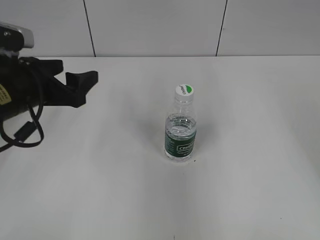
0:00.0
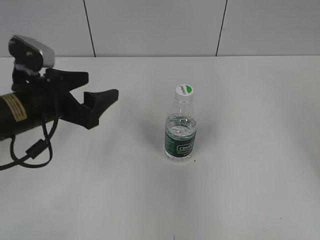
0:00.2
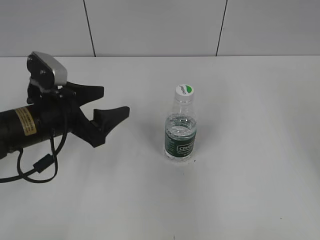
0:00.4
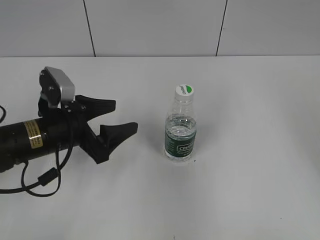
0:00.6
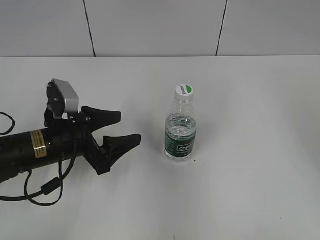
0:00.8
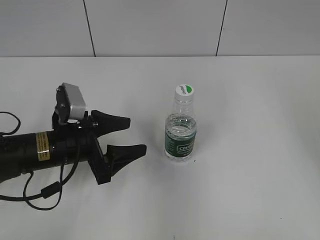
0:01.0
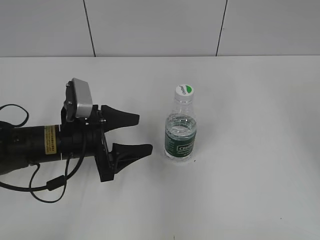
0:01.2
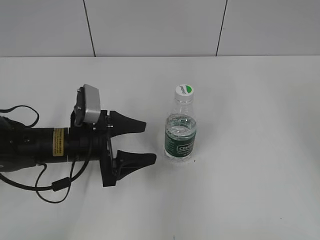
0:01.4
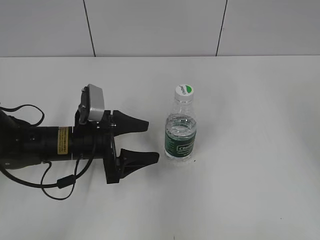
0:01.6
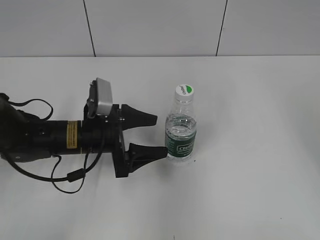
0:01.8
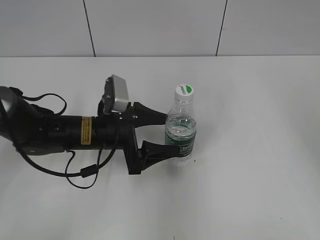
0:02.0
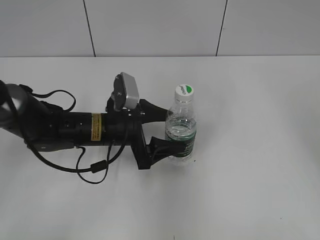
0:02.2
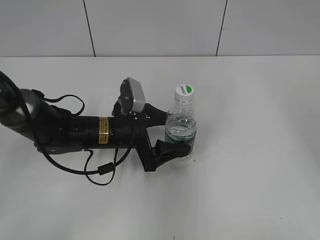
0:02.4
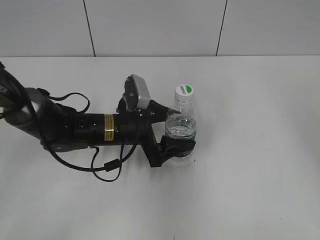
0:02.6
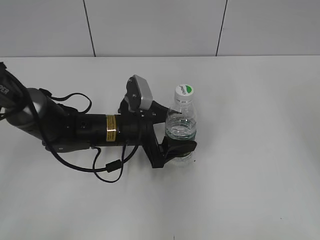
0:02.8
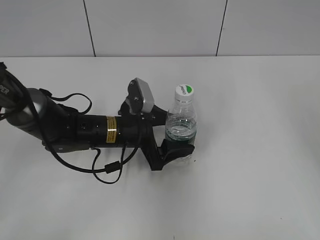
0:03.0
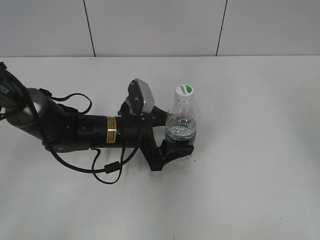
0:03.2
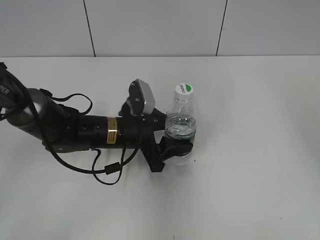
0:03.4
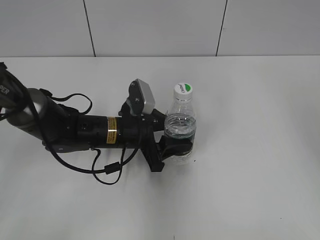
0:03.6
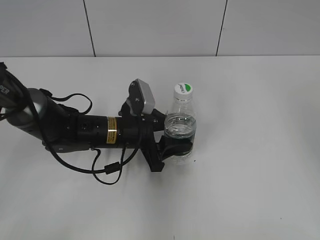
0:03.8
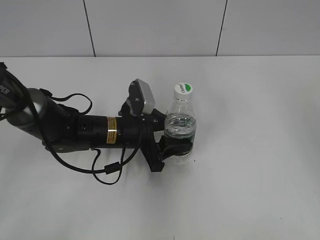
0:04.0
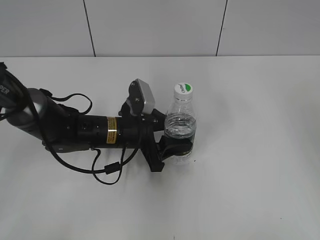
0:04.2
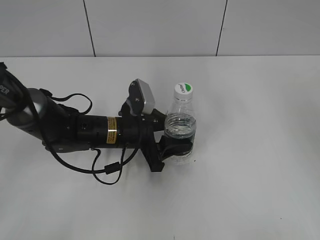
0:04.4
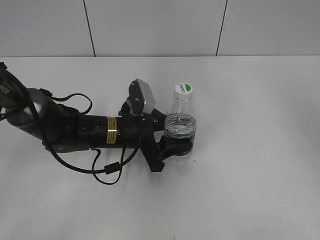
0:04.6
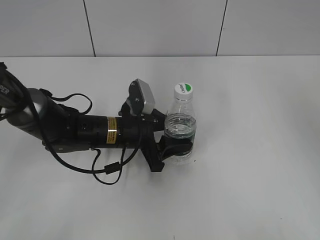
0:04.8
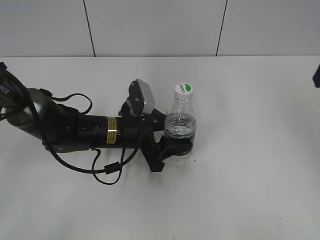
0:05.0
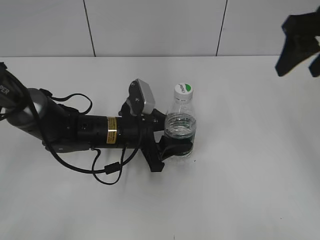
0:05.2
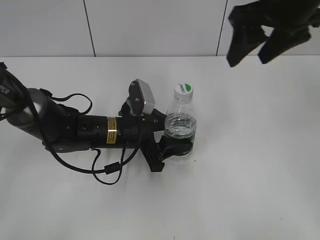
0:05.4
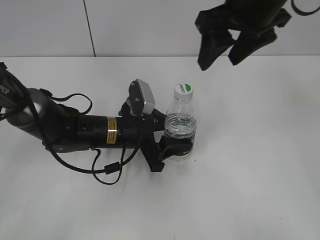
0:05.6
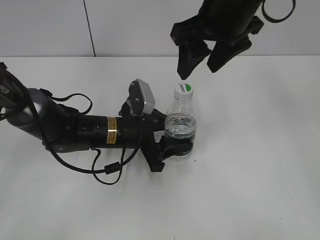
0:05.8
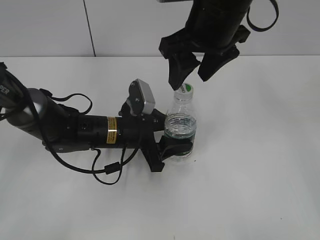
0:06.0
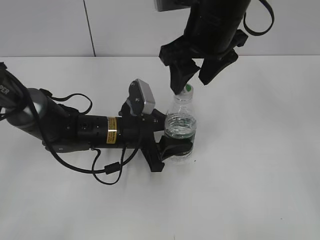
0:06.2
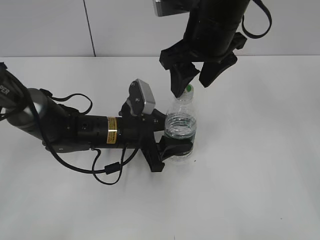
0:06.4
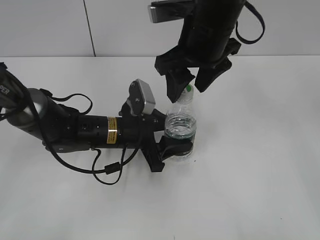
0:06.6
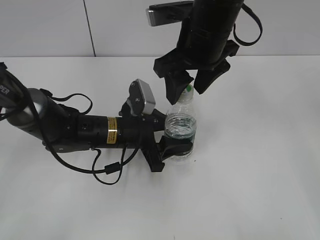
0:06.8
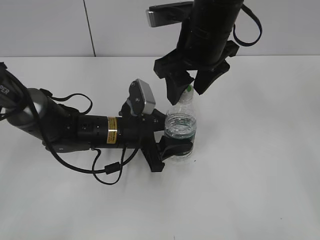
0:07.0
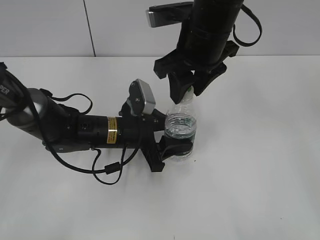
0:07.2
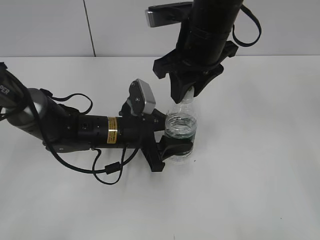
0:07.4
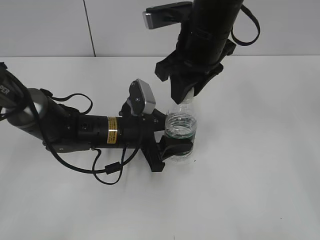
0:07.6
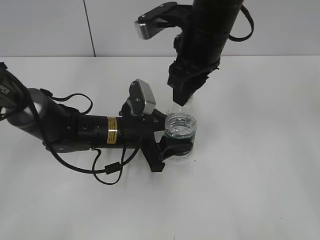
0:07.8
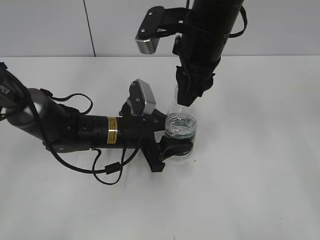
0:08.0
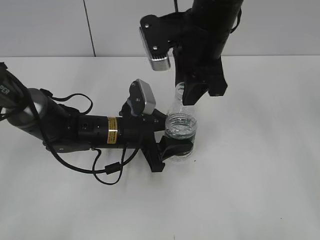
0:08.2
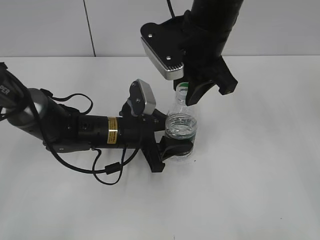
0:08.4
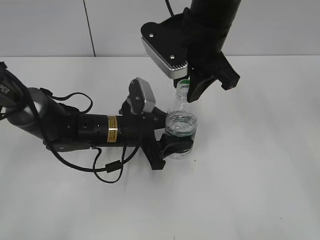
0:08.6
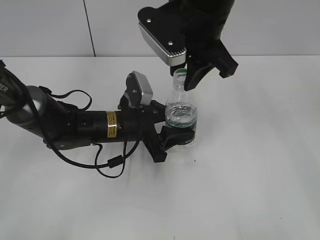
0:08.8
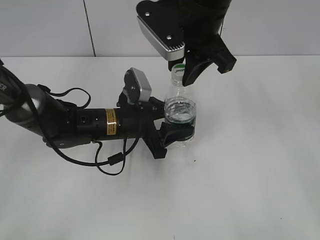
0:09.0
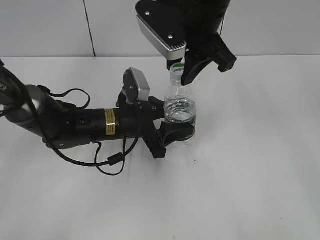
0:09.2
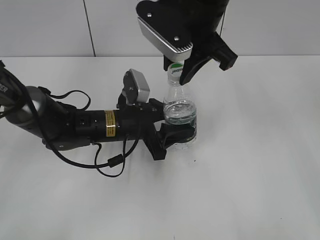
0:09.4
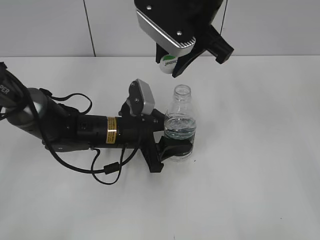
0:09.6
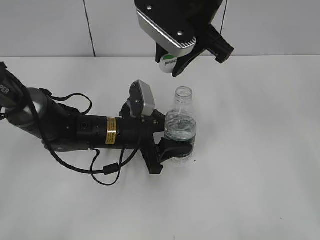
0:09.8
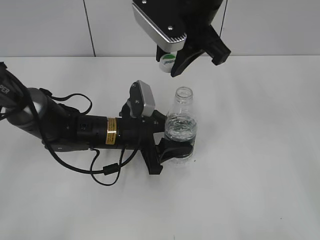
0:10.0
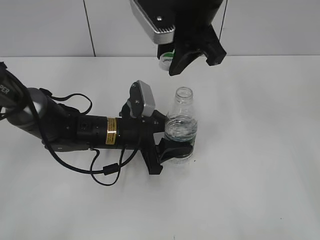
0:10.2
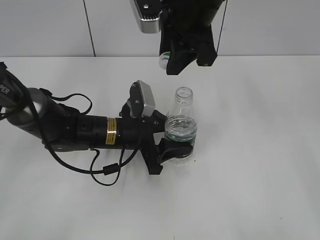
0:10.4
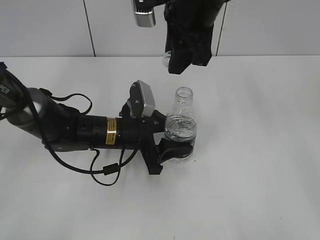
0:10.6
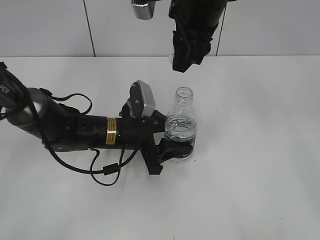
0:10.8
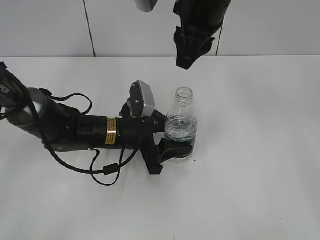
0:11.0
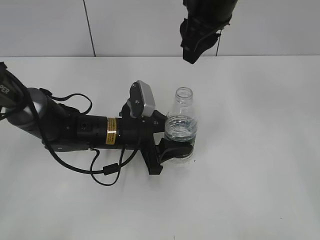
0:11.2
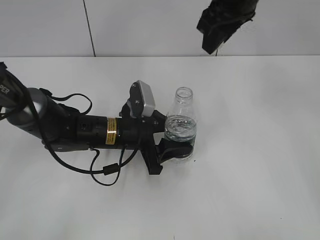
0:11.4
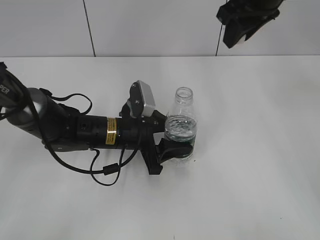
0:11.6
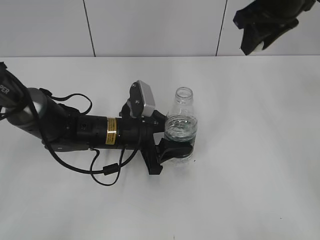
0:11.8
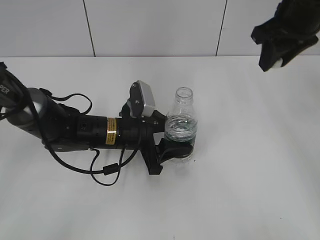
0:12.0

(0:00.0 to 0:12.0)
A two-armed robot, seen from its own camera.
Step, 0:00.0 - 0:03.6: Grasp the bottle and move it to the center of the table with the left gripper.
Step, 0:03.8 - 0:09.6: Unscrew the bottle cap with the right gripper while holding the bottle with the left gripper.
0:00.0 - 0:01.6: The left gripper is displaced downward and to the right by approximately 15 cm.
0:01.6 - 0:03.0: The left gripper shifts some 5 cm to the right.
0:03.0 - 0:04.4: The left gripper closes.
0:04.4 - 0:06.0: The right gripper is displaced to the left by about 25 cm.
0:06.0 - 0:07.6: The right gripper closes.
0:09.0 - 0:10.4: There are only small adjustments of the grippers.
0:10.4 - 0:12.0: The right gripper goes about 15 cm to the right.

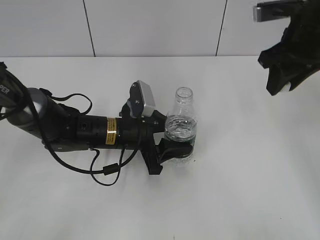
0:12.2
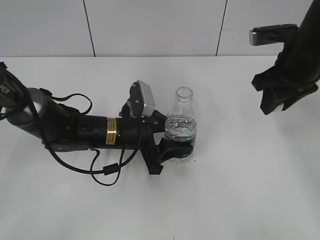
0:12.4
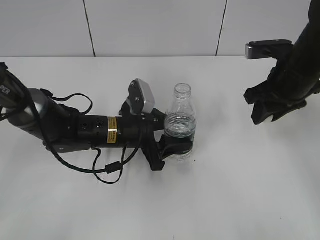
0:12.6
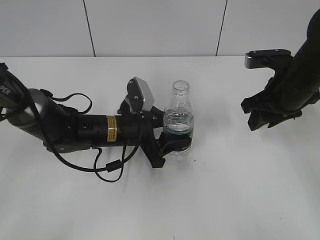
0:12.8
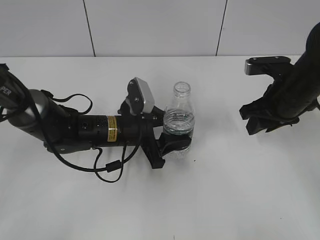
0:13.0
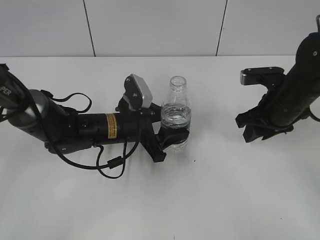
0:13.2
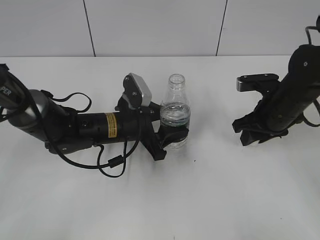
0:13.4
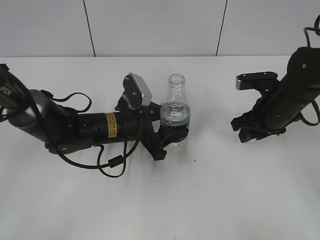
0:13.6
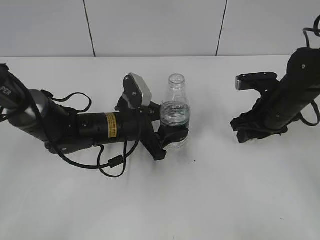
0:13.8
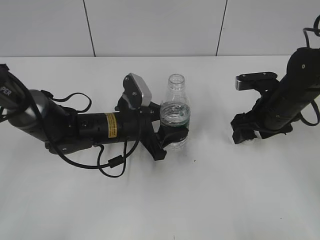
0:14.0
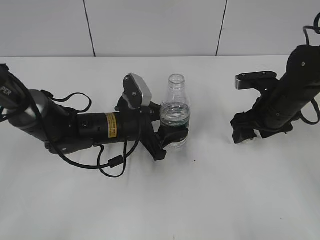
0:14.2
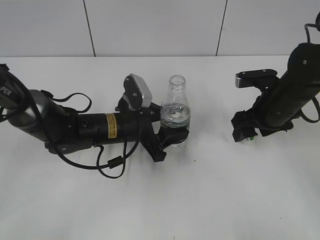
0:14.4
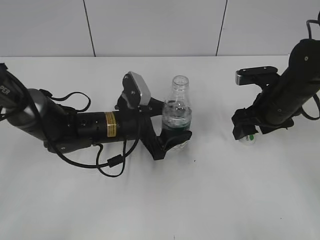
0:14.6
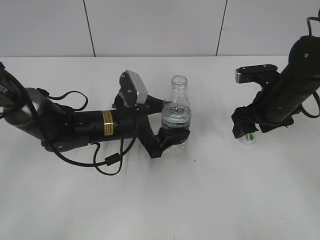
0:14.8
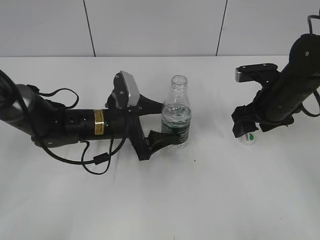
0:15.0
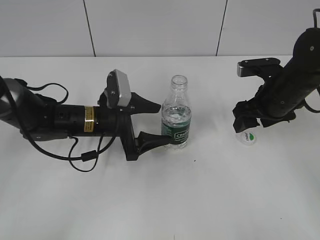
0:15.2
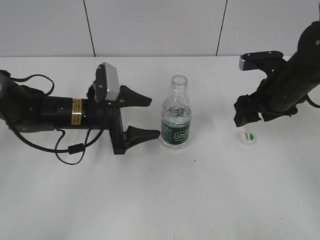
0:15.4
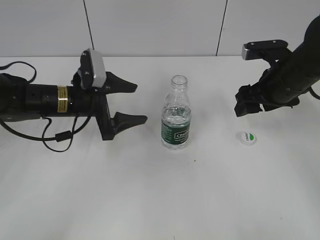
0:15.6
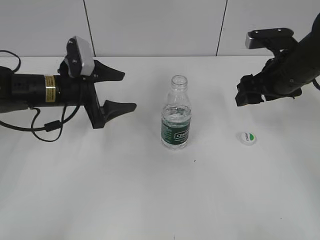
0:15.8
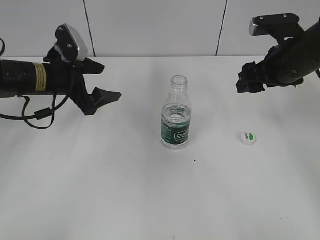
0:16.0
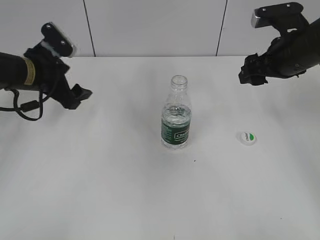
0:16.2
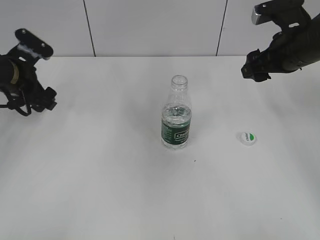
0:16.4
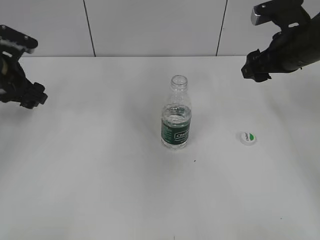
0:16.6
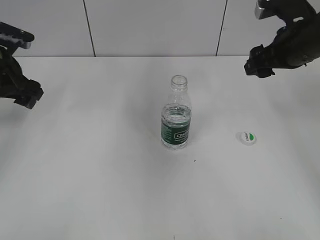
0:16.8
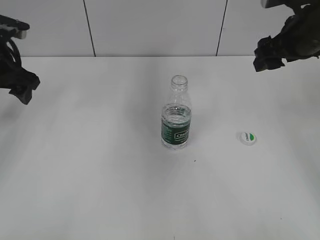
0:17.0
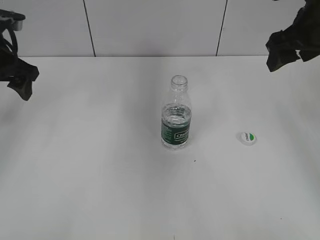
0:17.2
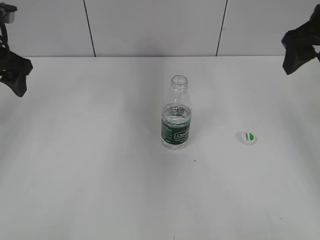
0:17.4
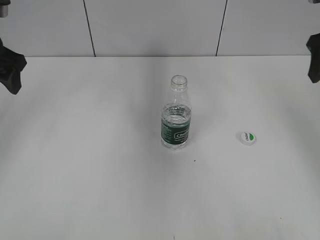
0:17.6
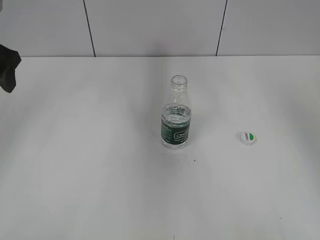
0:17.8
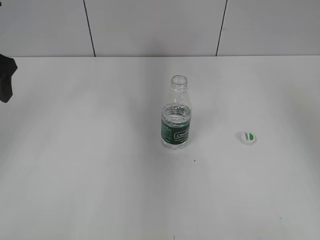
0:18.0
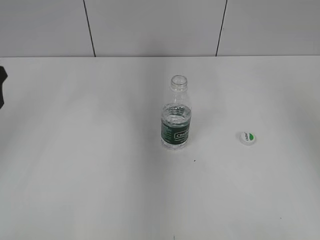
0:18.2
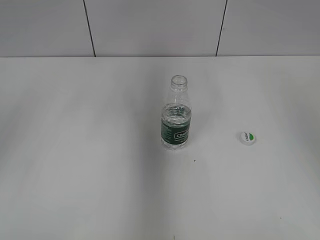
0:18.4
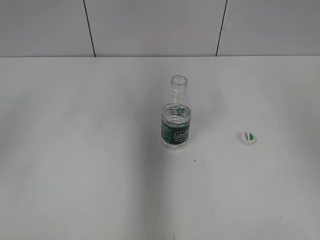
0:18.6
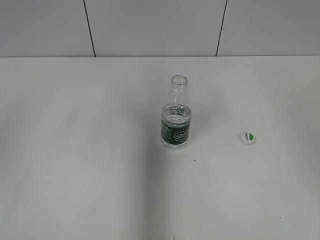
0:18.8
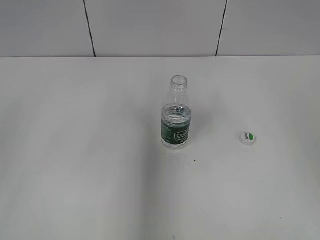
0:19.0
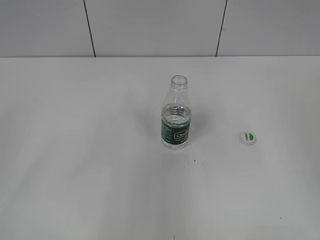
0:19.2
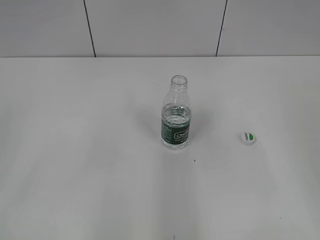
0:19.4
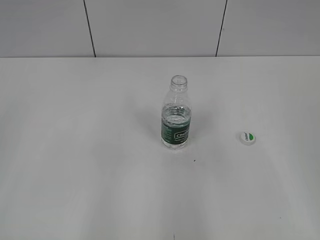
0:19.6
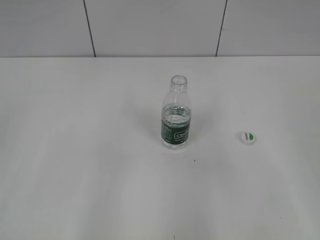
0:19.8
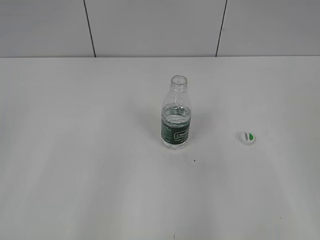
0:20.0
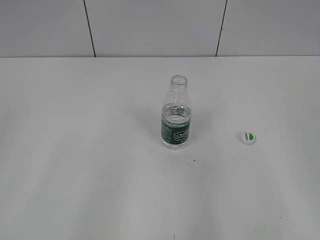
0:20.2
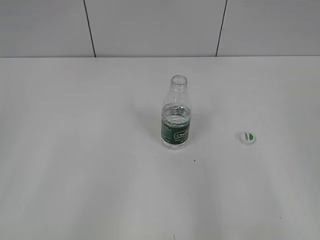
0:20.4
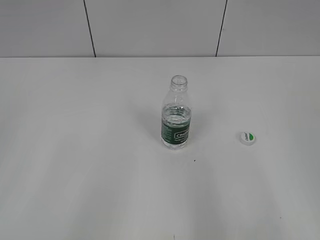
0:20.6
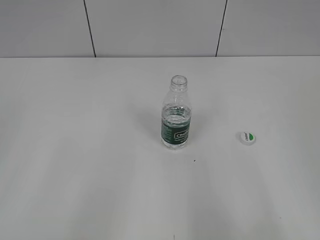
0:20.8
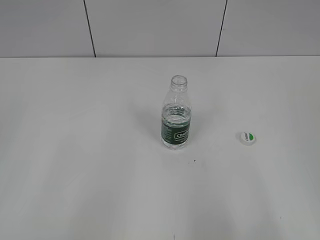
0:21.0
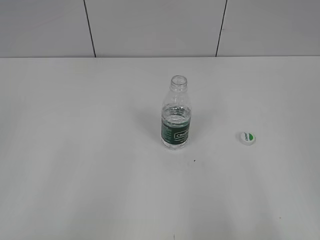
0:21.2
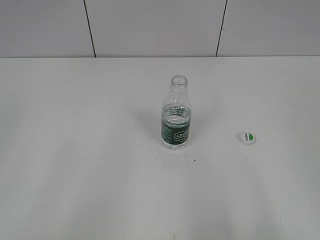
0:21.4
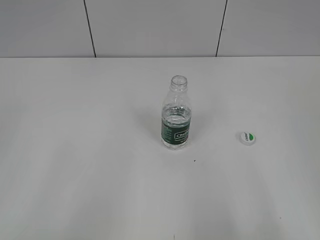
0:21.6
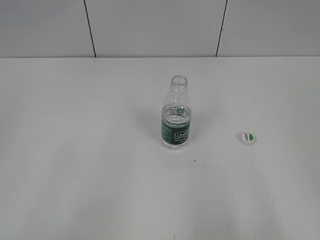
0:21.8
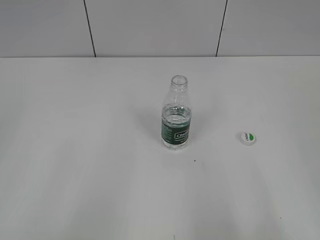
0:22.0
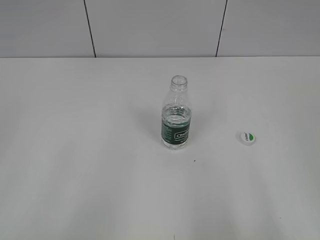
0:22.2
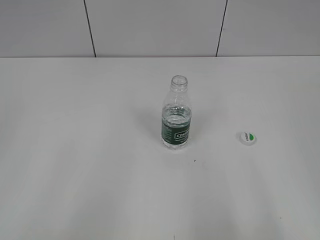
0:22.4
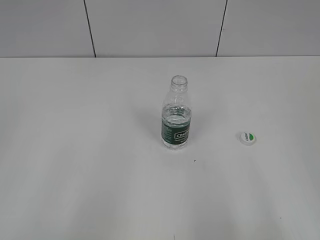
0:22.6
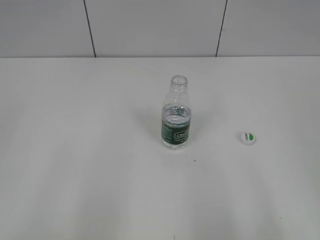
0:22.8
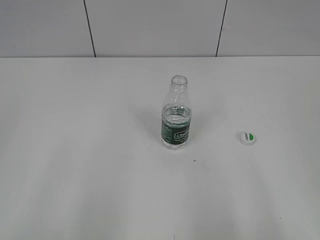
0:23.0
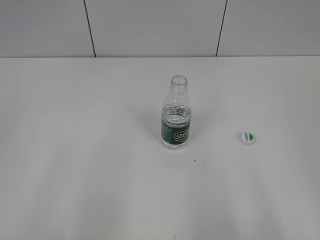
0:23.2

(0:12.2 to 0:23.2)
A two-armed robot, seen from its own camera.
Step, 0:12.2 - 0:14.2: Place the bottle cap on the table with the right gripper.
Step, 0:14.4 - 0:15.6: Place the bottle on the table with the left gripper.
0:12.2 - 0:13.8: The right gripper is displaced downward by approximately 15 cm.
0:13.8 - 0:15.4: The right gripper opens; the left gripper heads to the left, covering some 5 cm, and opens its fingers.
0:15.4 - 0:17.0: The left gripper shifts roughly 20 cm to the left and upward. The right gripper moves upward, roughly 10 cm.
0:17.0 - 0:18.4: The left gripper moves backward and upward, approximately 15 cm. The right gripper heads upward, backward and to the right, covering approximately 15 cm.
0:18.4 - 0:20.0: The right gripper moves backward and downward, approximately 20 cm; the left gripper is displaced backward by approximately 20 cm.
